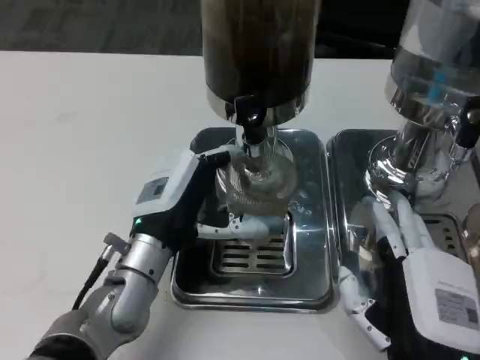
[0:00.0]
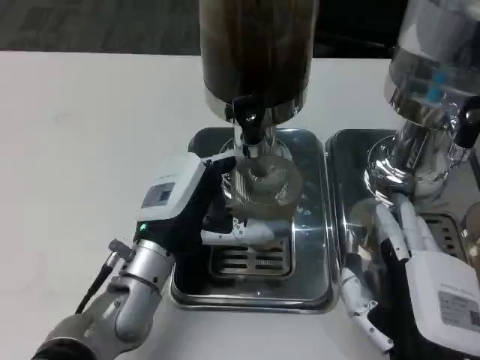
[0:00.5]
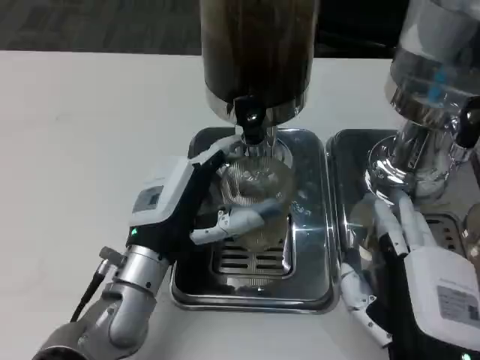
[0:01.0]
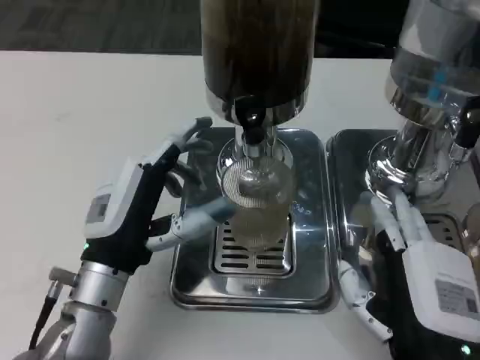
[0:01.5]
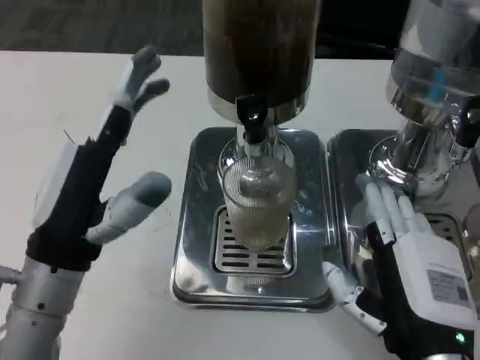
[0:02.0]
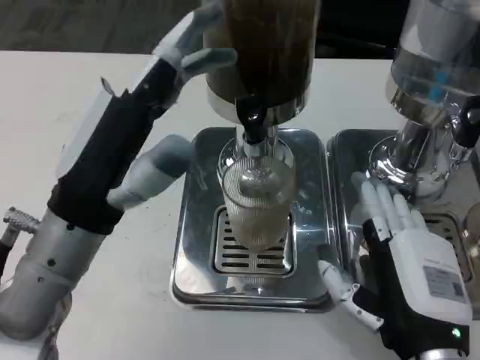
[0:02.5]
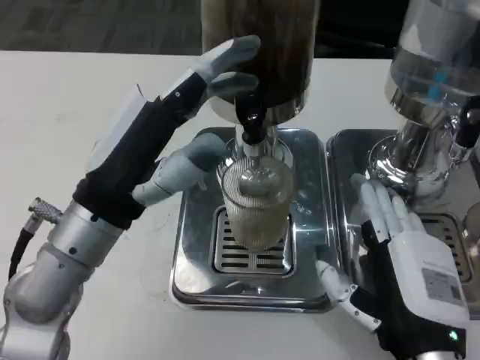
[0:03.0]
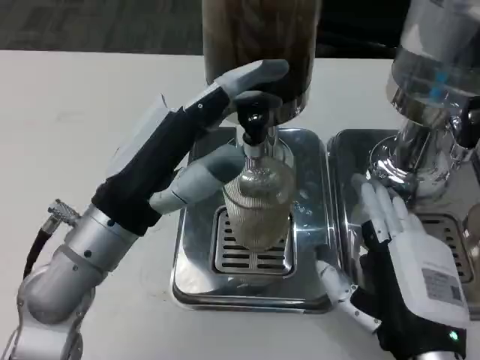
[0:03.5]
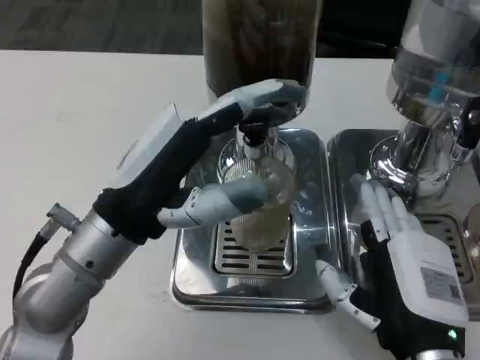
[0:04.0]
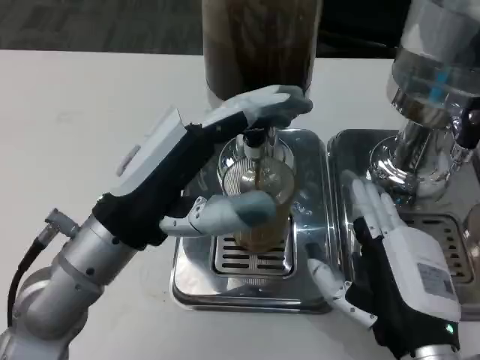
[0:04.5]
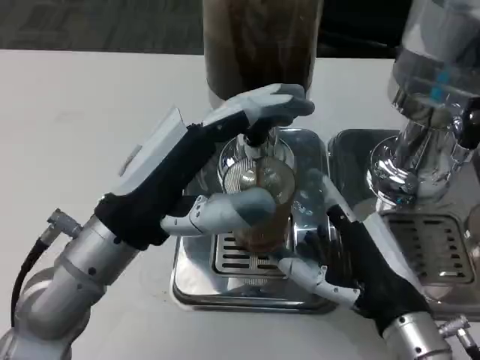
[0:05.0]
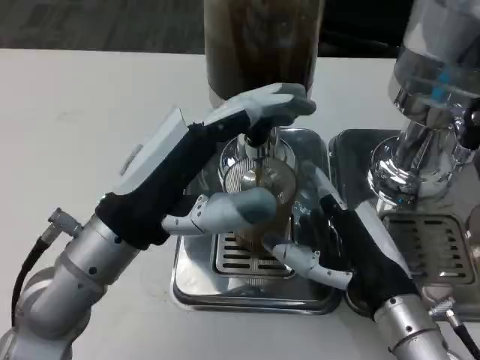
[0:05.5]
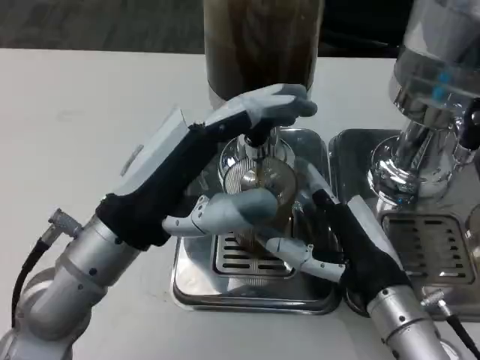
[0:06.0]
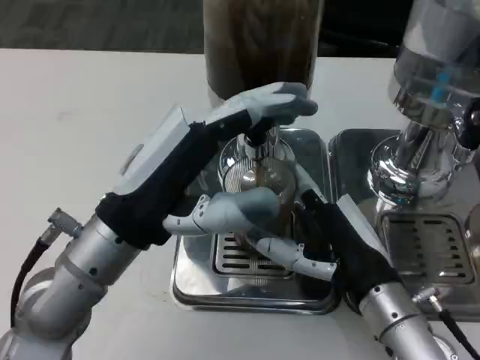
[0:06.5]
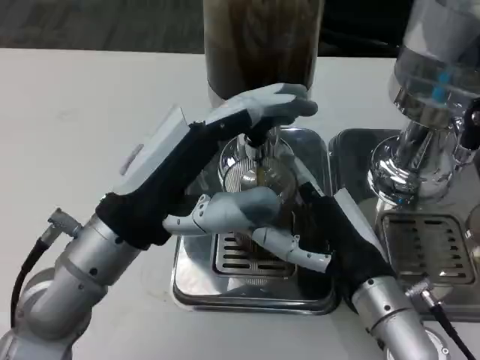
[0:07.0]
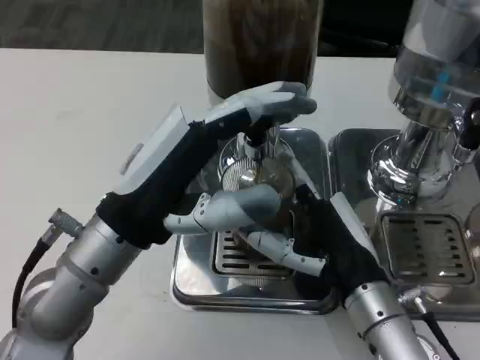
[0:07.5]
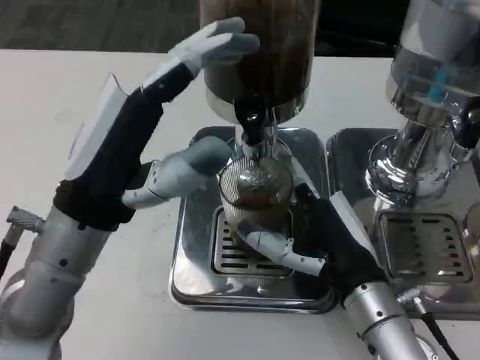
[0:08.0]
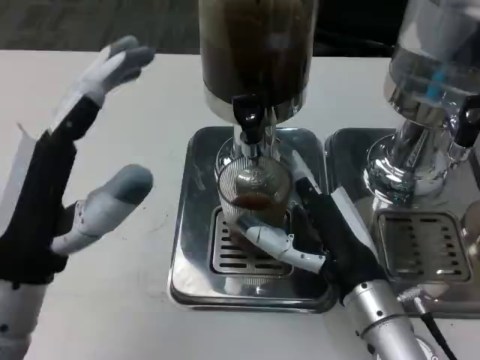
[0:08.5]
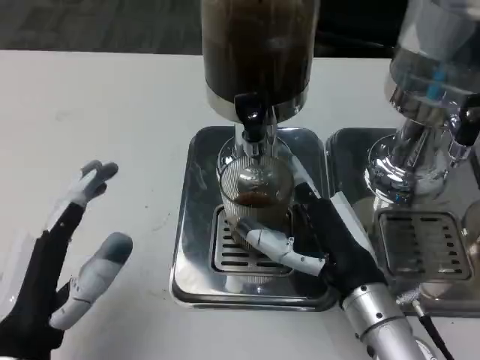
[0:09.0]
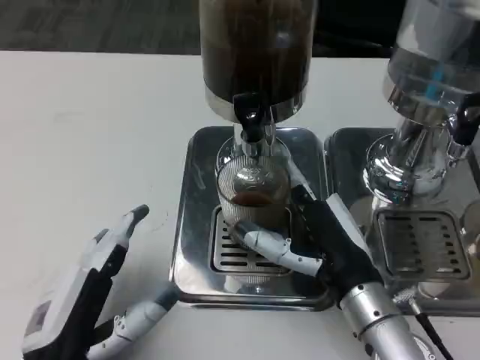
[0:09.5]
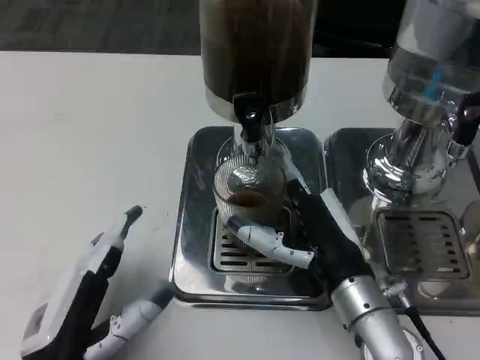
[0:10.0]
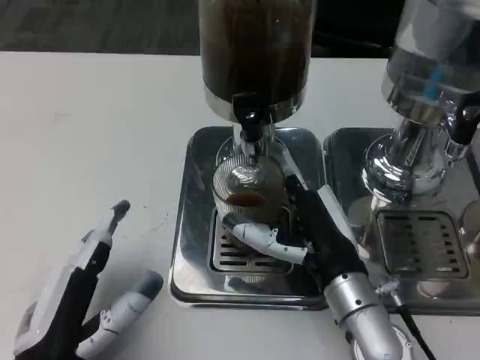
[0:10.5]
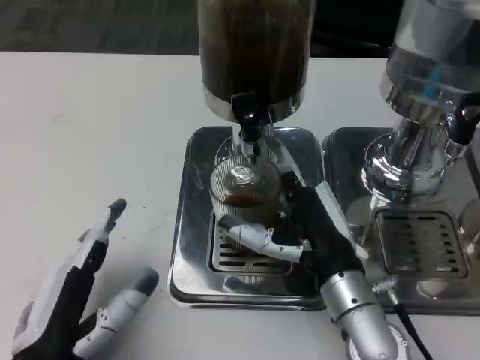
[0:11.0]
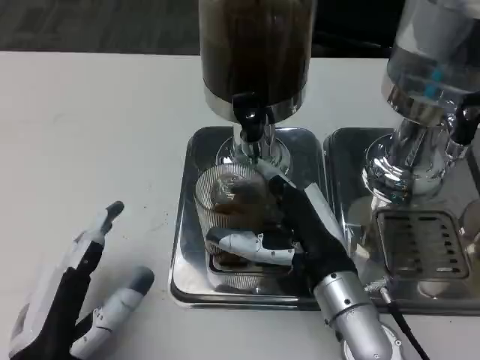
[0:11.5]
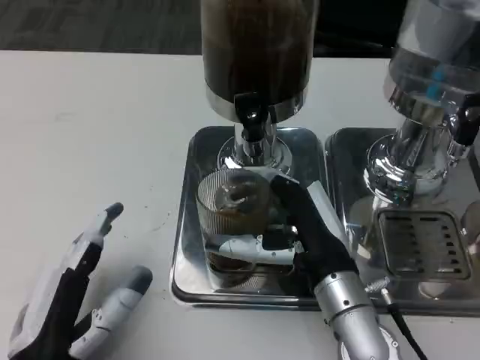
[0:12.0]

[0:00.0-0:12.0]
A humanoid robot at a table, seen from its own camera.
Task of the whole recording: Grasp the cup under the faucet to collect the drink, then remove the cup.
0:00.0 to 0:02.0: The left hand shifts roughly 10 cm backward, upward and to the left.
0:04.0 to 0:06.0: The right hand travels forward by about 5 cm.
0:08.0 to 0:10.0: The left hand goes approximately 15 cm downward and backward.
0:10.0 to 0:12.0: There are only small adjustments of the hands.

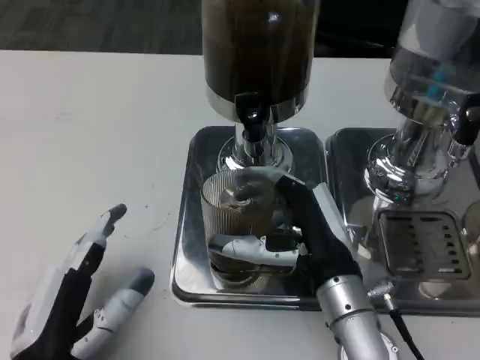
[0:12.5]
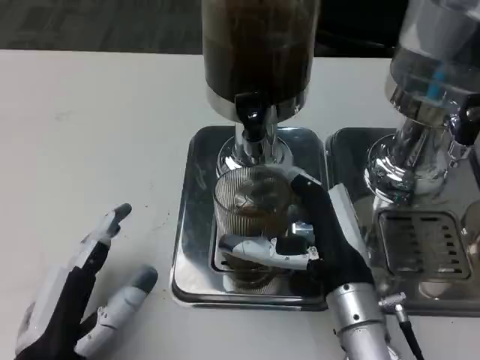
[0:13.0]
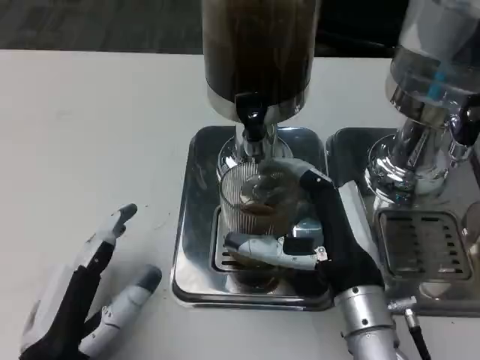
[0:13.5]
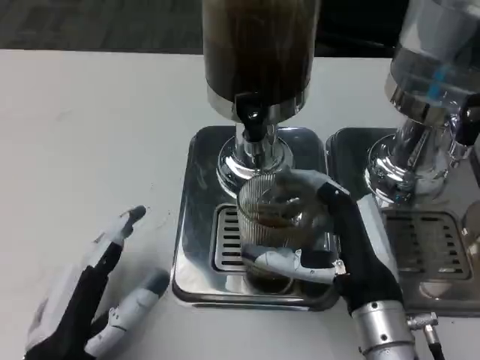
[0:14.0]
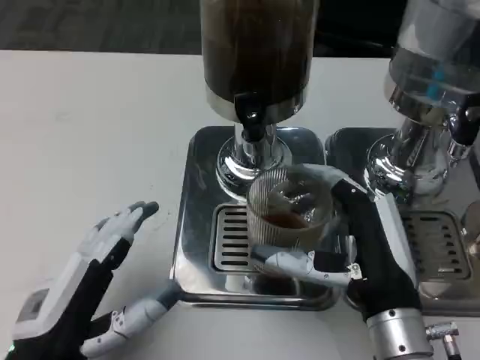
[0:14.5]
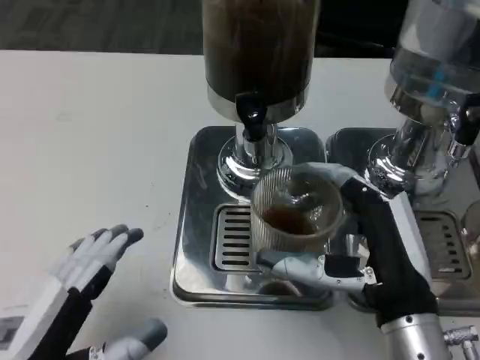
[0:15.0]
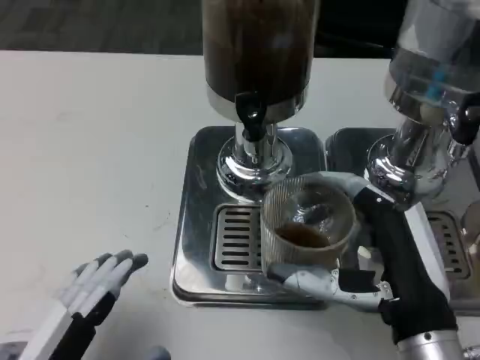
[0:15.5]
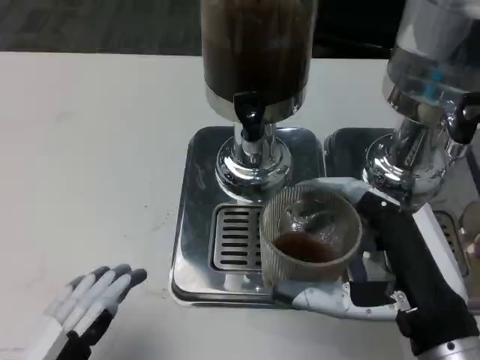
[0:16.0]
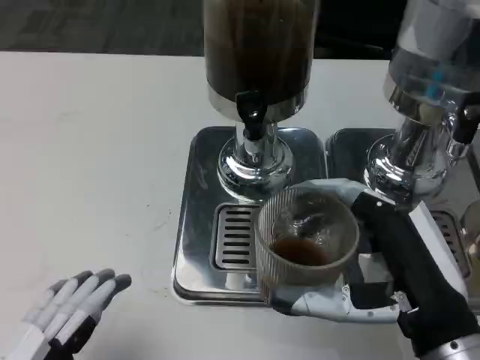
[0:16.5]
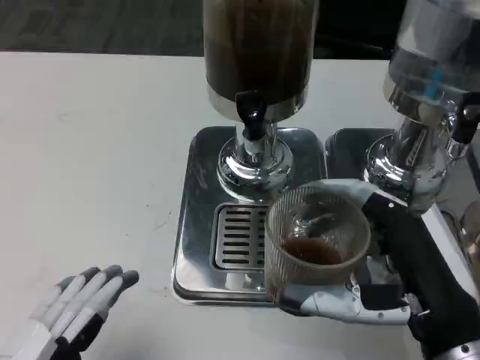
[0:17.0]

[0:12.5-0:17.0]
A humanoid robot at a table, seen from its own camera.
Task of the whole recording: Grasp the cup under the faucet to collect the drink, then remove the cup.
0:12.5 to 0:14.5: The right hand changes place by roughly 5 cm.
0:14.5 to 0:17.0: The right hand changes place by approximately 10 cm. The left hand shifts approximately 10 cm backward.

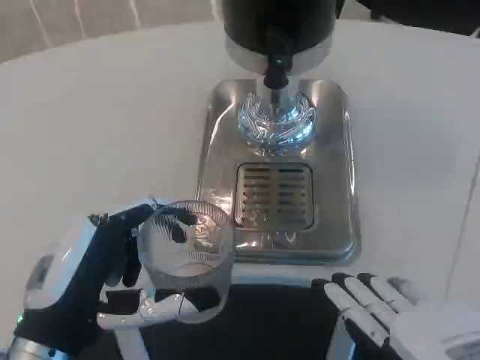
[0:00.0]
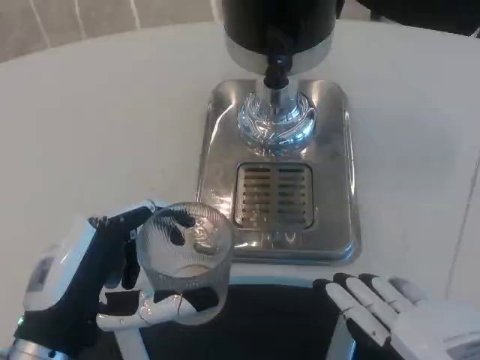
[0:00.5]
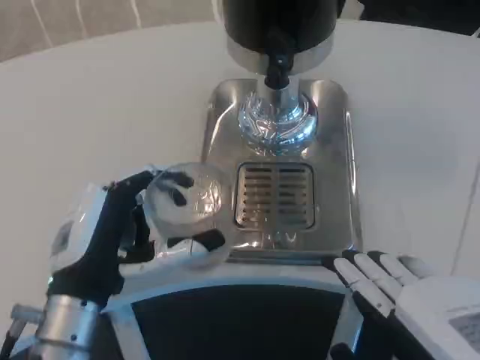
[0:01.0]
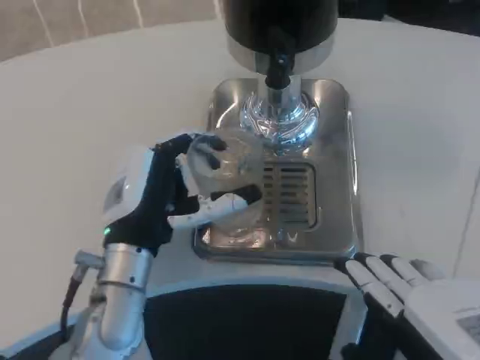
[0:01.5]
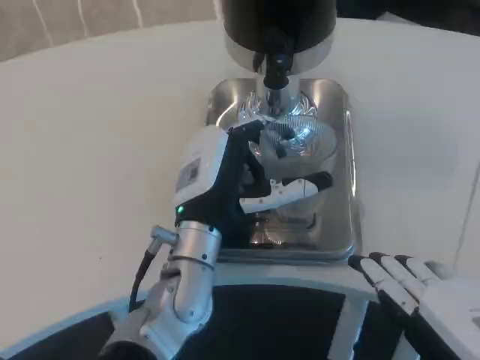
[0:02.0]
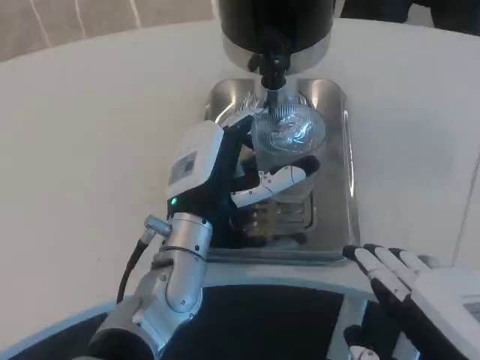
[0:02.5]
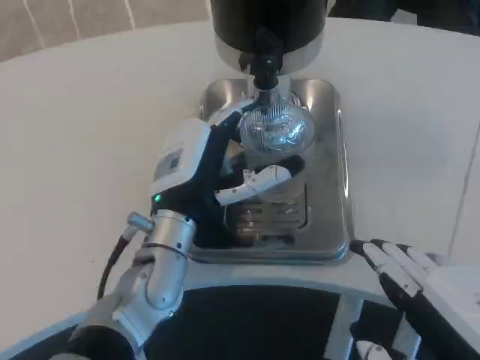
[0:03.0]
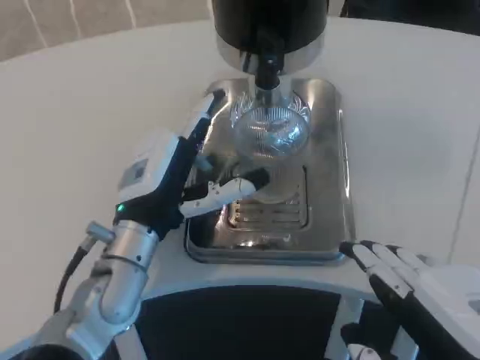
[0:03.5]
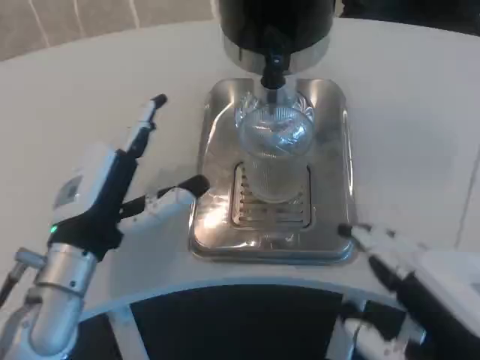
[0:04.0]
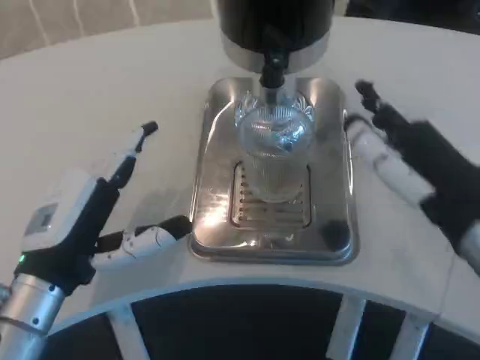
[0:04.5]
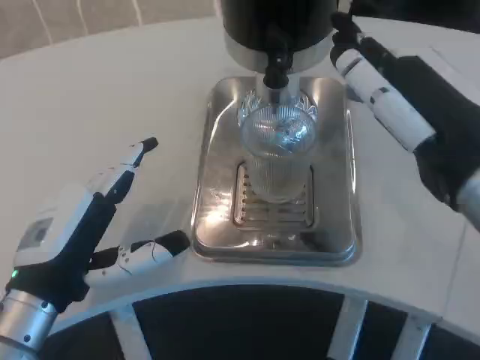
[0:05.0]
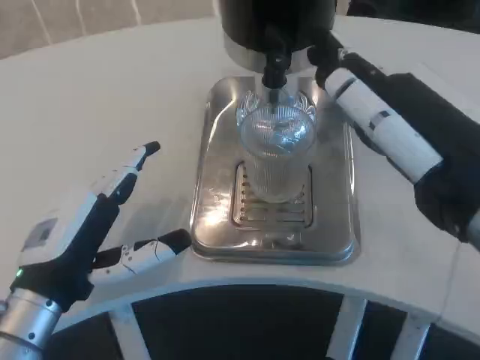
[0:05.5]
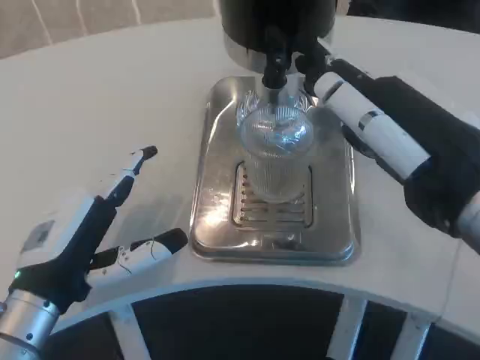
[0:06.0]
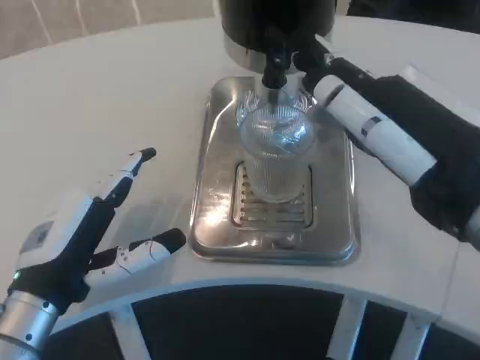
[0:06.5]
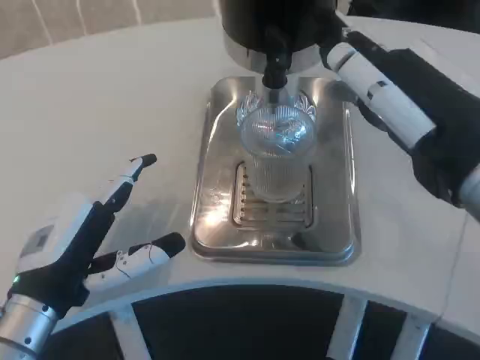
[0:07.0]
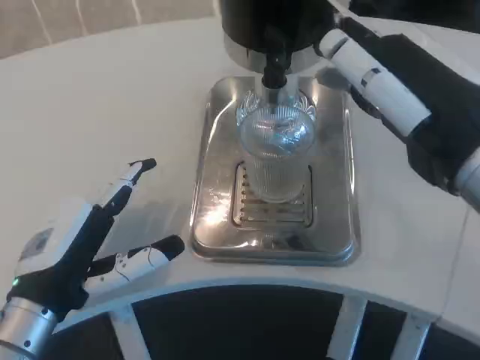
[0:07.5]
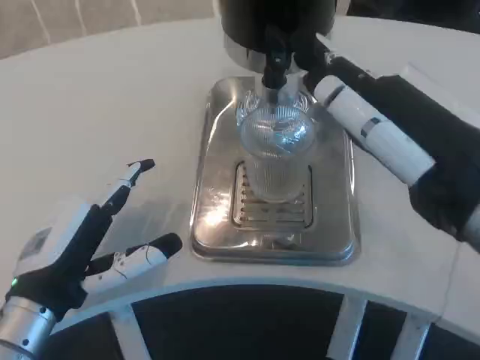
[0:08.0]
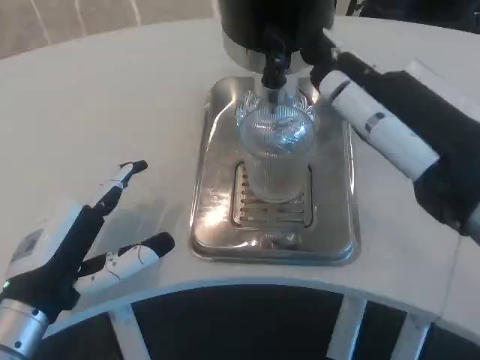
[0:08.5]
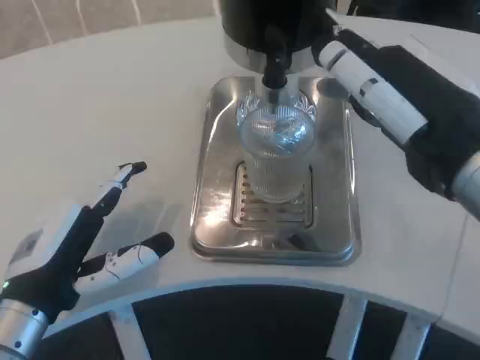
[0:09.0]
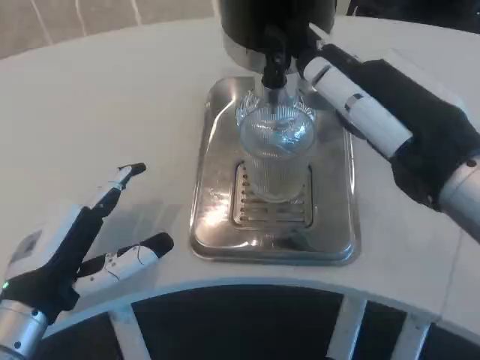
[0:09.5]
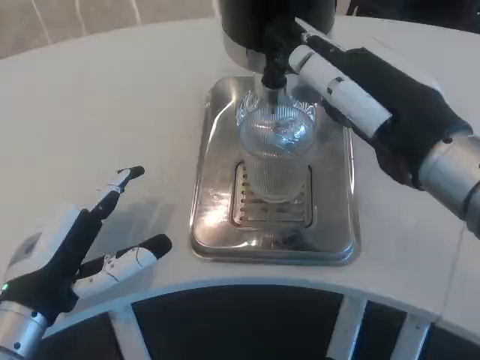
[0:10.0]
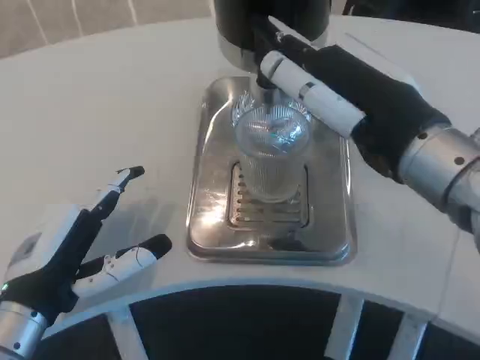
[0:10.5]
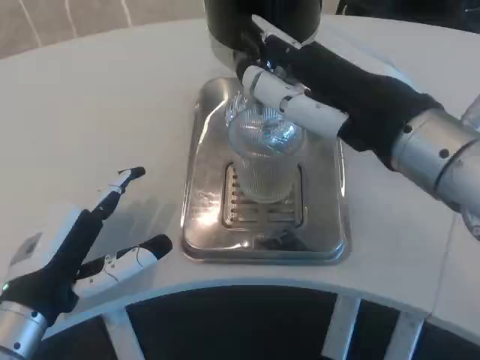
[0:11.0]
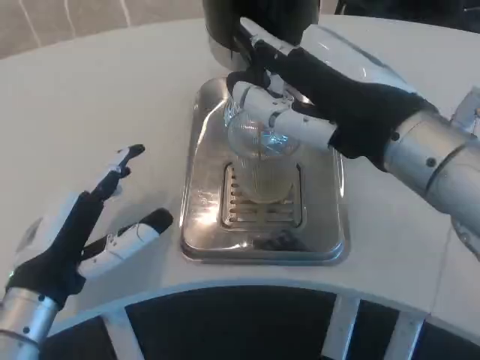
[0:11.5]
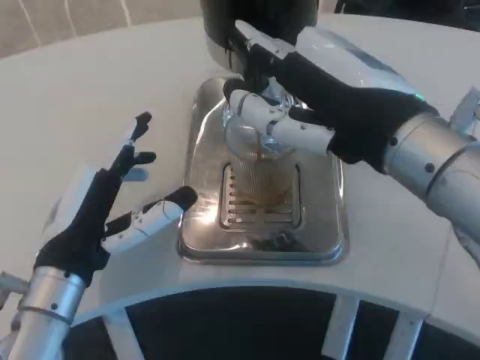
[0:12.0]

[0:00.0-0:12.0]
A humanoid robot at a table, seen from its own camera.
Task of the whole recording: Grasp the cup under the faucet to collect the drink, then remove the cup.
0:00.0 to 0:02.0: The left hand heads to the right and forward, covering roughly 20 cm.
0:02.0 to 0:04.0: The left hand goes about 10 cm to the left.
0:04.0 to 0:06.0: The left hand moves some 5 cm, while the right hand travels forward and upward by approximately 10 cm.
0:06.0 to 0:08.0: There are only small adjustments of the hands.
0:08.0 to 0:10.0: The right hand moves forward, some 5 cm.
